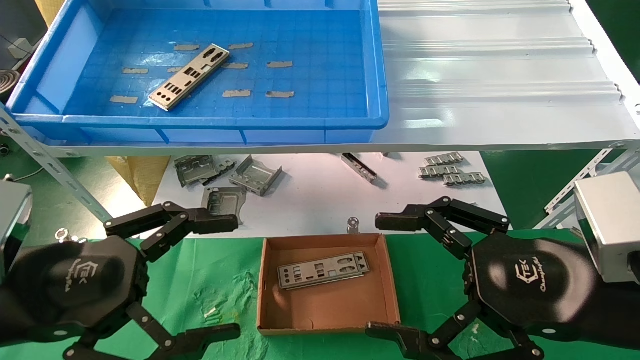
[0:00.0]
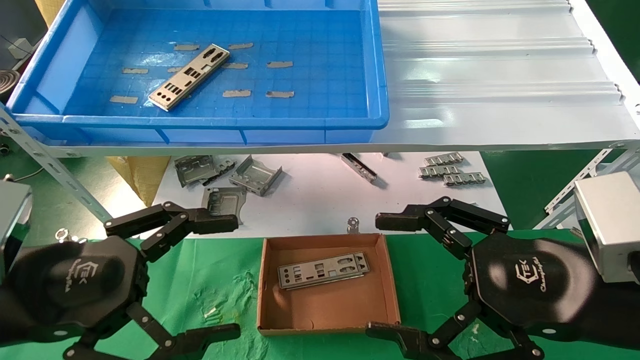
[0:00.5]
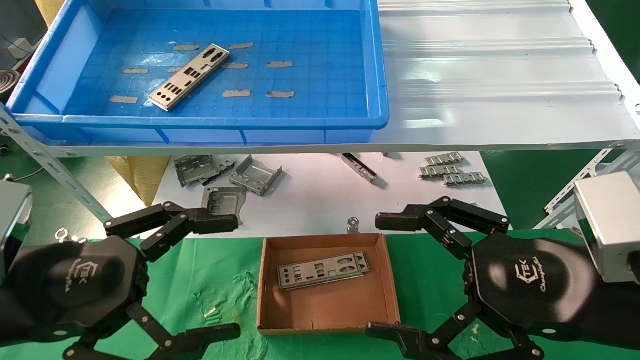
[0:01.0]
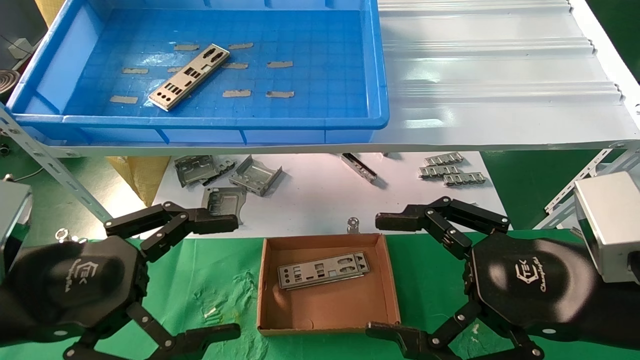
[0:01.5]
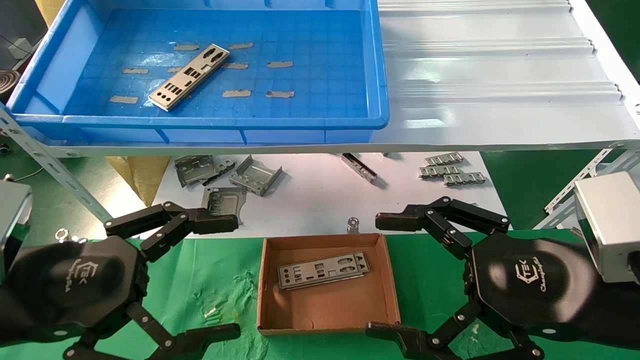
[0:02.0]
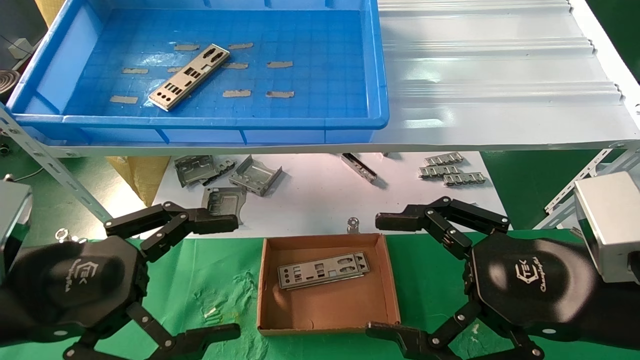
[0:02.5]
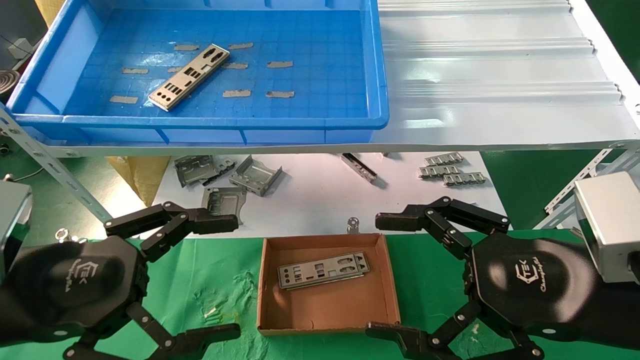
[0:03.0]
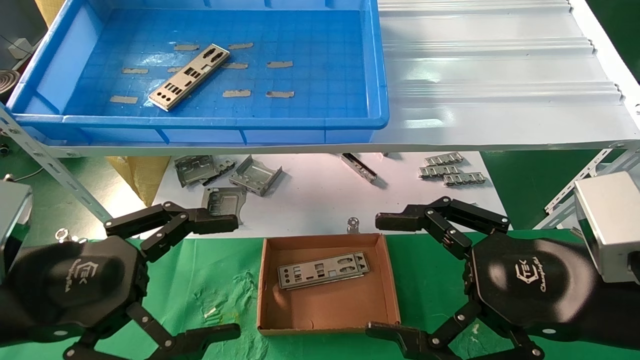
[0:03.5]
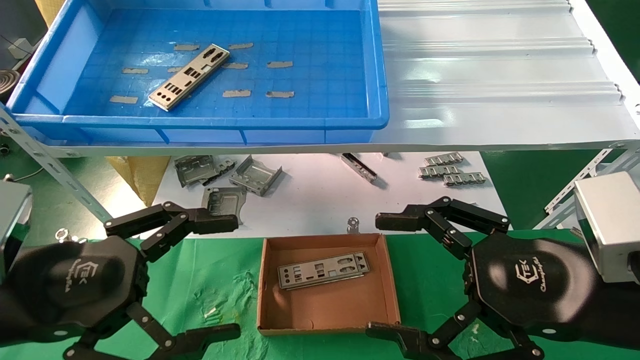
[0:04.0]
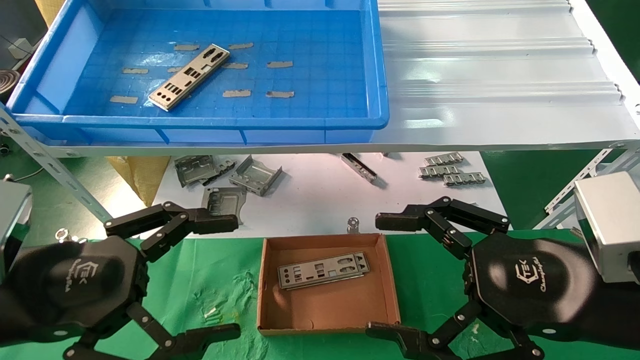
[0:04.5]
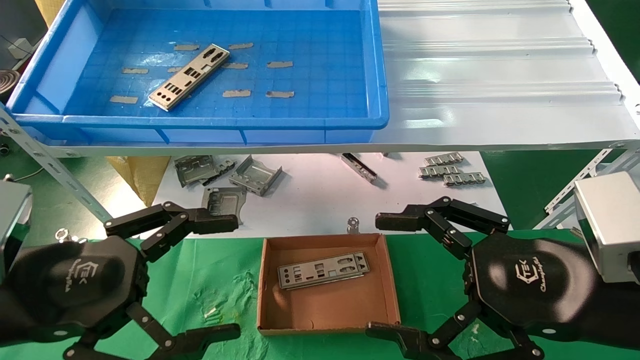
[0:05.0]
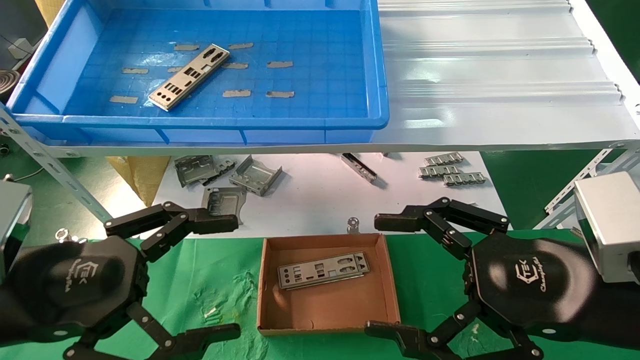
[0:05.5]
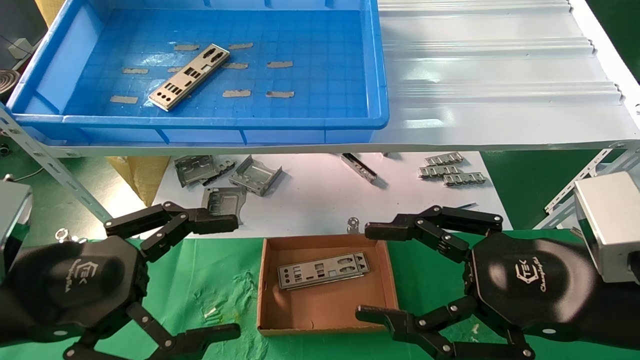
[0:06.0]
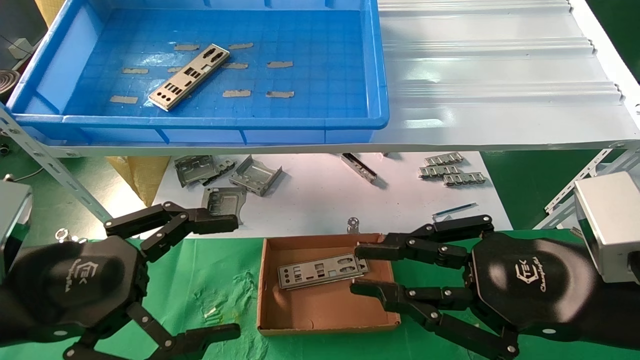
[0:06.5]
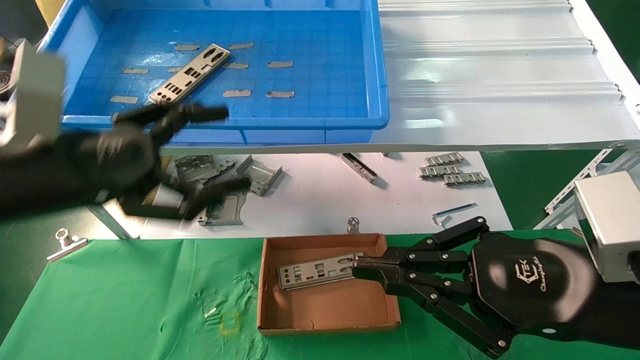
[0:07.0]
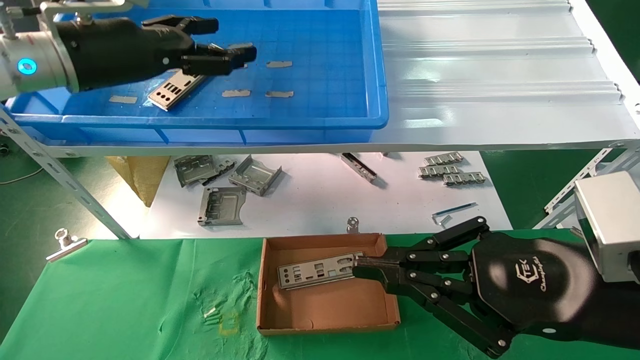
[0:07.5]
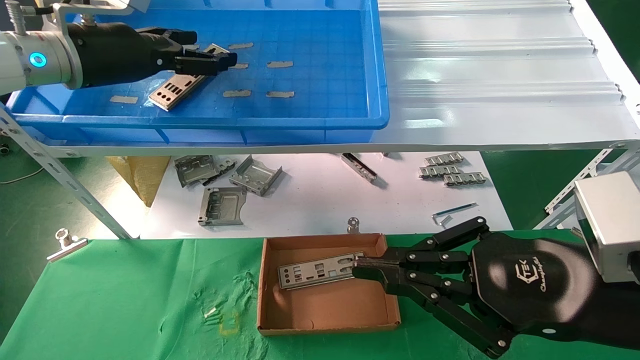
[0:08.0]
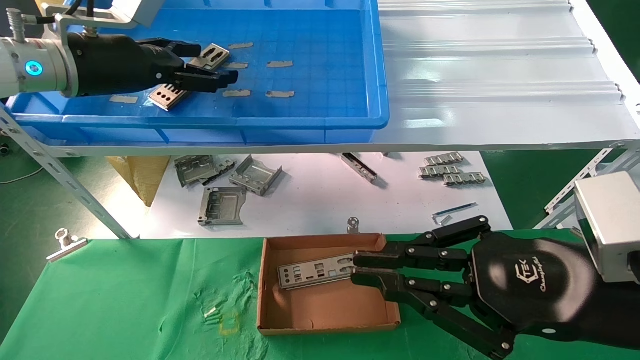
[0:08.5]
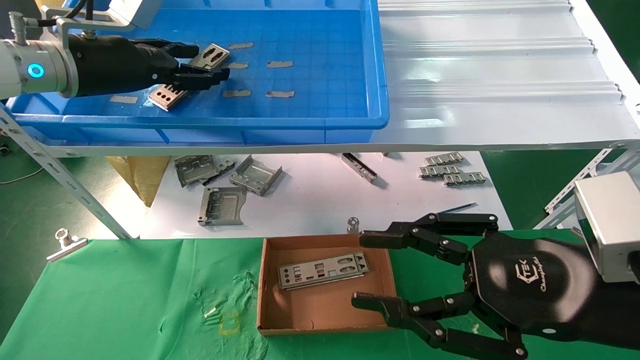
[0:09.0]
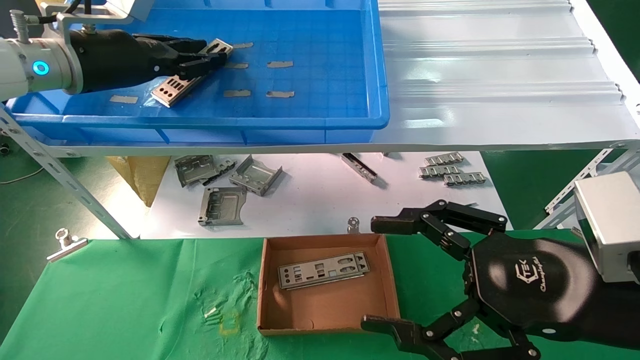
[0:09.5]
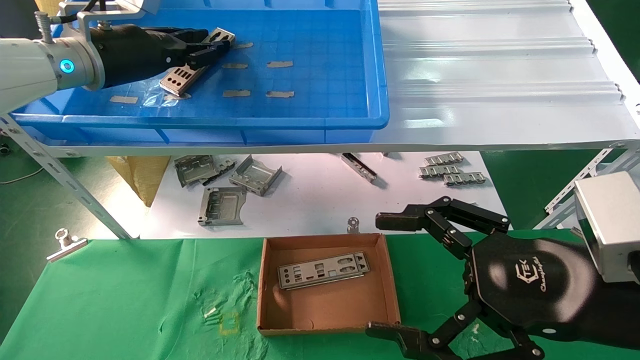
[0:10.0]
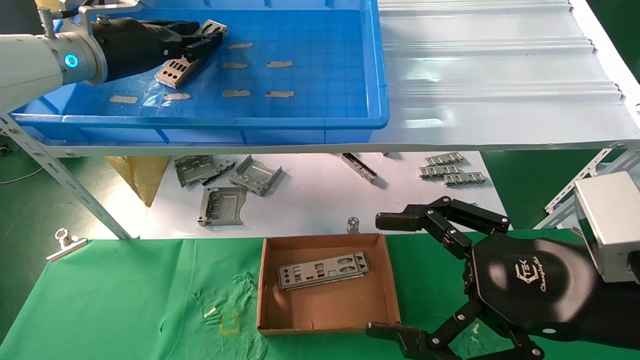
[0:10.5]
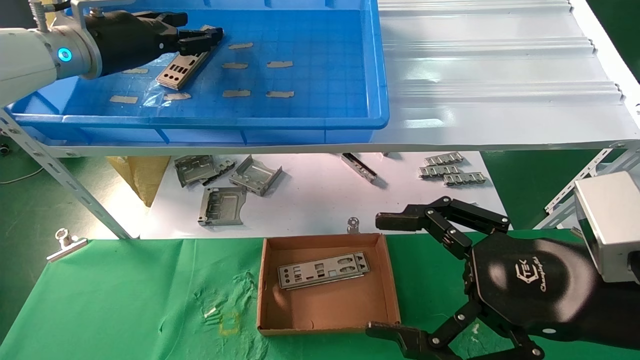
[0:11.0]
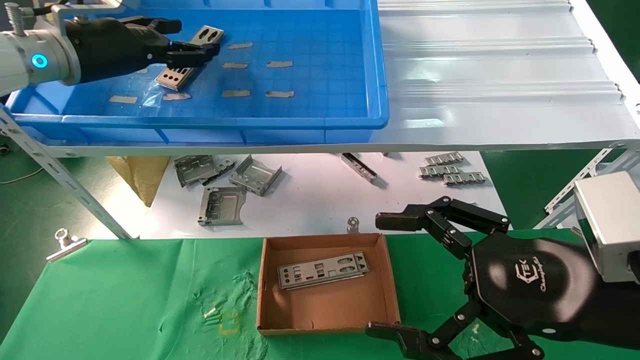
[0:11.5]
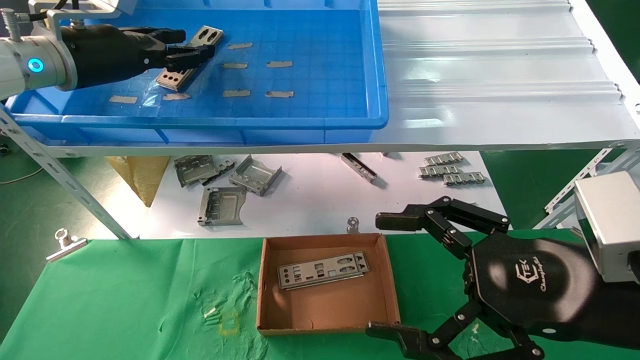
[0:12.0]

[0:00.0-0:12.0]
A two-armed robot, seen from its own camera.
Task of the whole recording: pick up the parts on the tray and put them in the cardboard box.
0:00.0 to 0:06.0: The two grippers keep their place.
0:06.0 to 0:08.0: The left gripper shifts some 30 cm forward and upward. The right gripper closes up.
0:08.0 to 0:10.0: The left gripper closes up. Meanwhile the right gripper opens up.
0:10.0 to 0:12.0: The left gripper opens up.

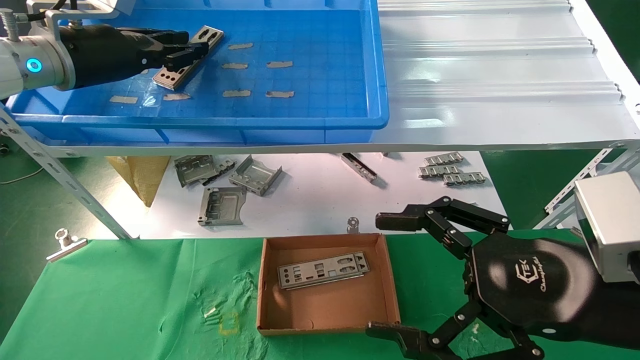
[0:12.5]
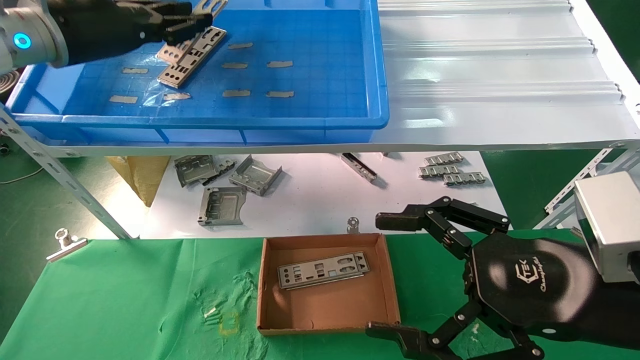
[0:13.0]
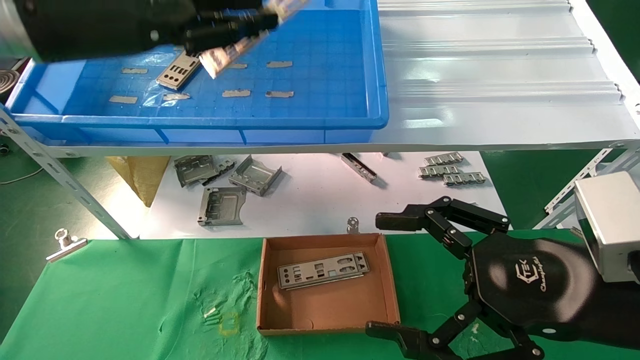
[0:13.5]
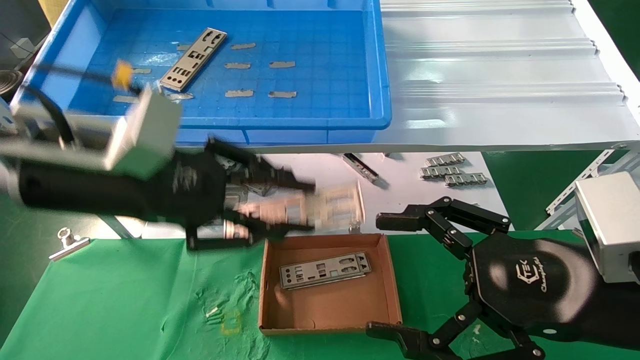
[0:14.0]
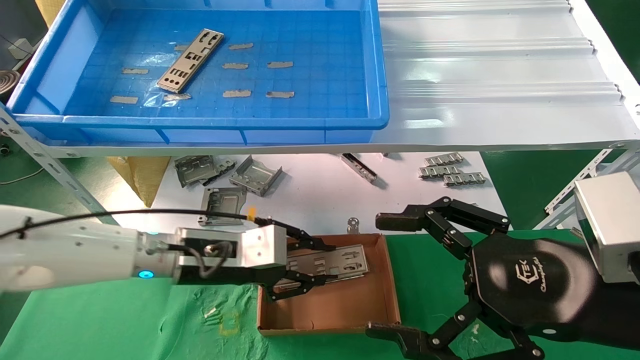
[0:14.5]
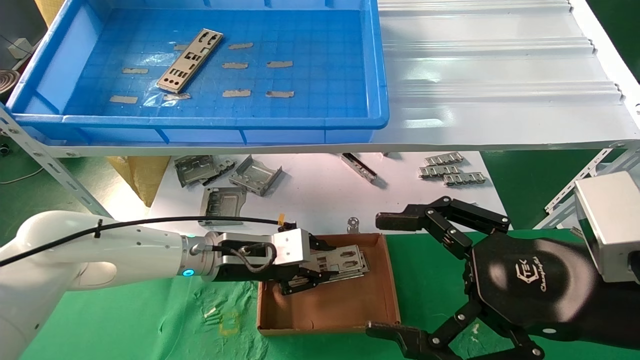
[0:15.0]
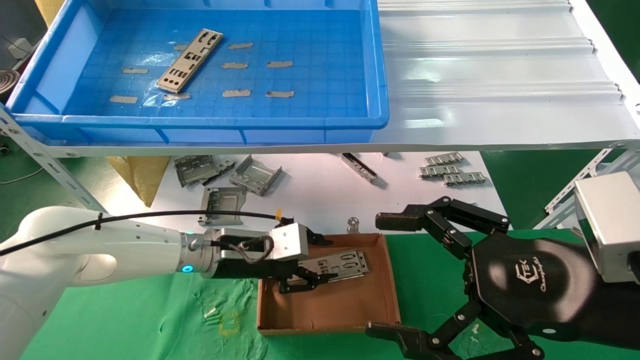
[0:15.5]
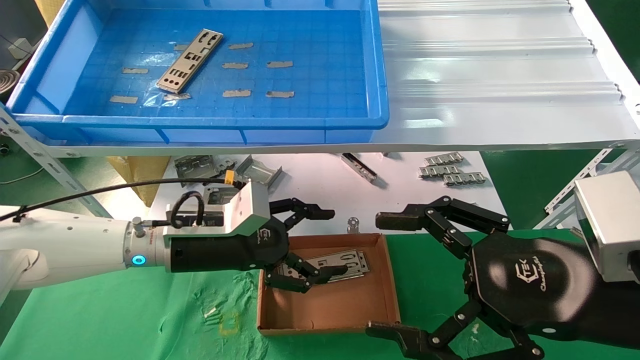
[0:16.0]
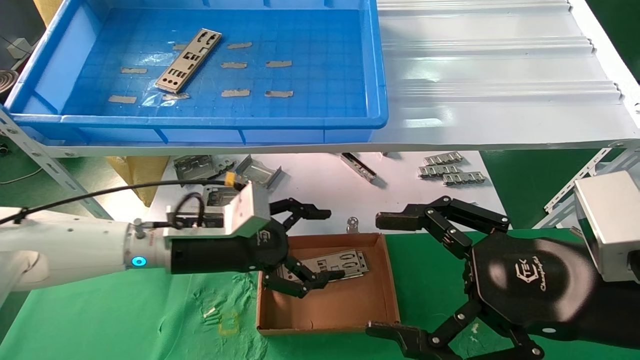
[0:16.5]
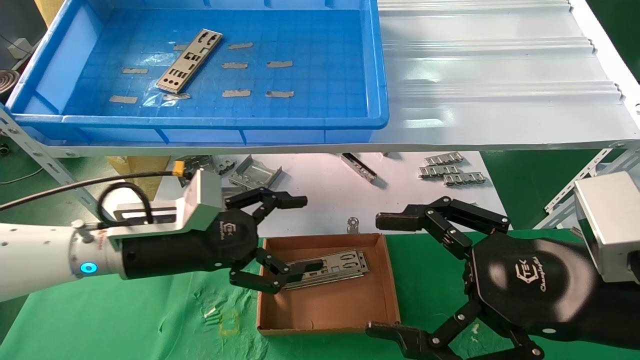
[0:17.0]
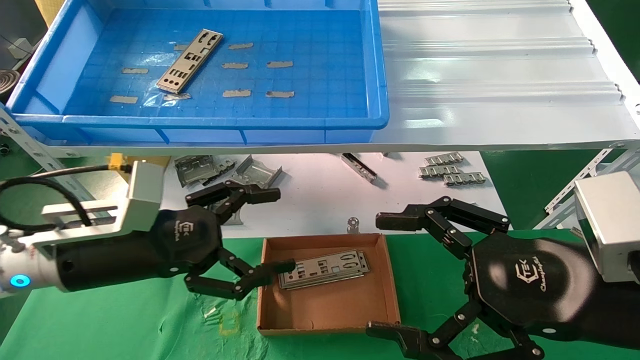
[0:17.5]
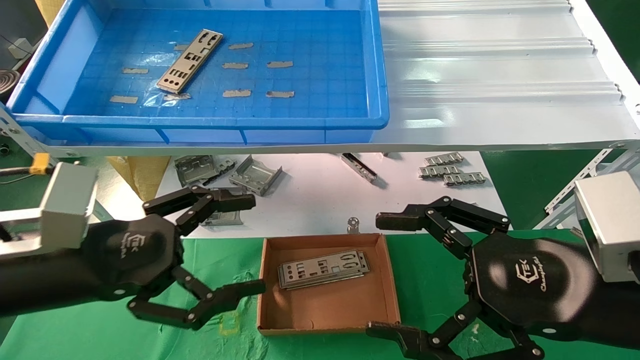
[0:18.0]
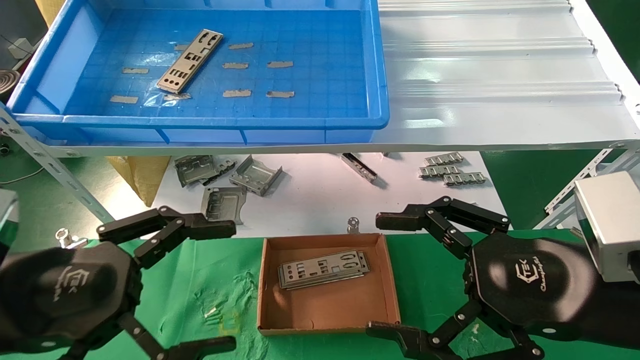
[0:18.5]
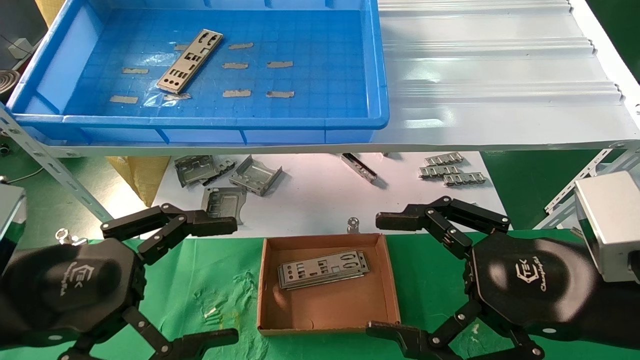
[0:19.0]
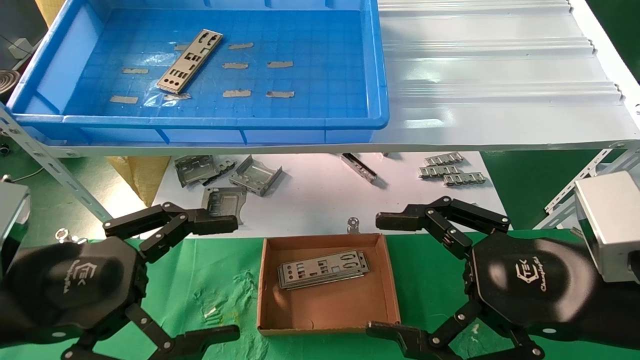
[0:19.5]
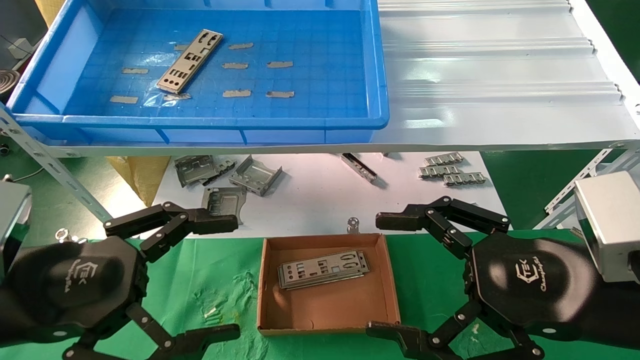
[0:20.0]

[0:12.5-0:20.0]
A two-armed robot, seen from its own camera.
Task of the whole recording: pick up the parts on the tray and put them in the cardboard box.
Step, 0:13.0 to 0:15.0: Place the IO bracket into the ingredient slot.
0:12.5 to 0:14.5: The left gripper heads downward and to the right, covering approximately 25 cm.
0:14.5 to 0:16.5: The left gripper opens its fingers.
0:16.5 to 0:18.0: The left gripper shifts roughly 15 cm backward and to the left.
0:18.0 to 0:20.0: The left gripper ends up approximately 5 cm from where it was.
